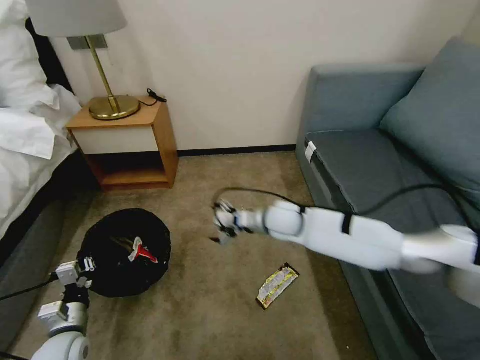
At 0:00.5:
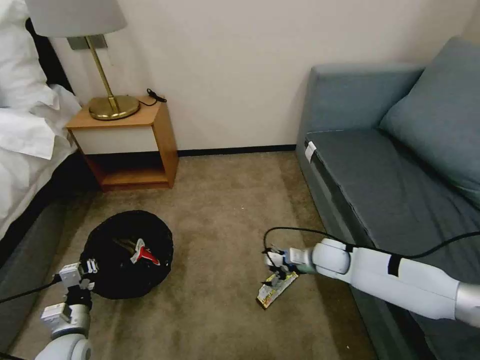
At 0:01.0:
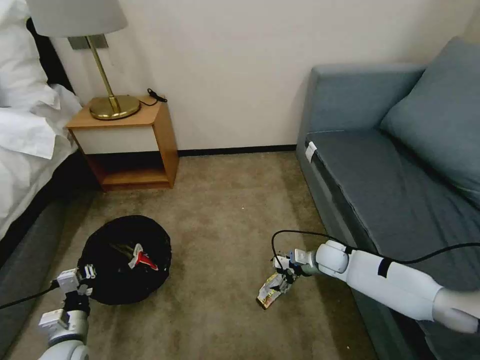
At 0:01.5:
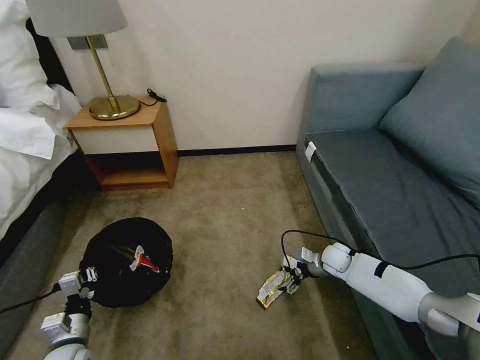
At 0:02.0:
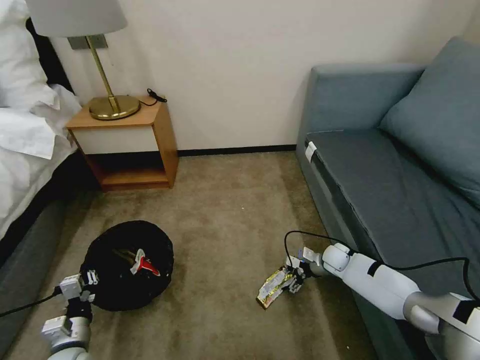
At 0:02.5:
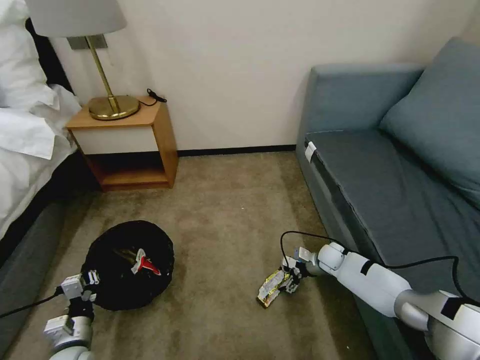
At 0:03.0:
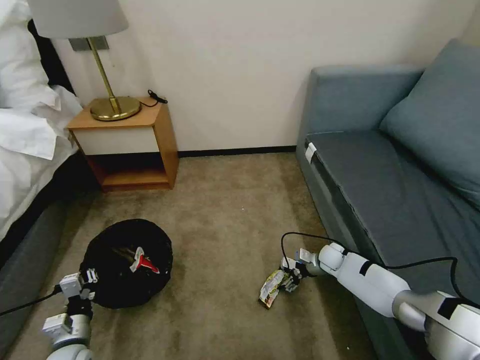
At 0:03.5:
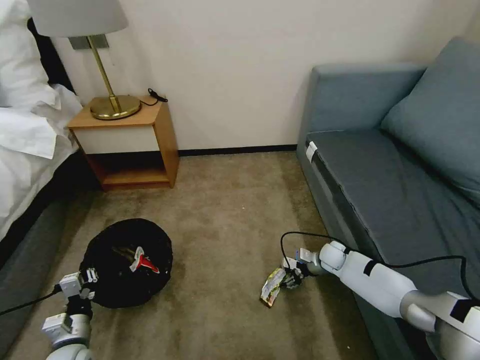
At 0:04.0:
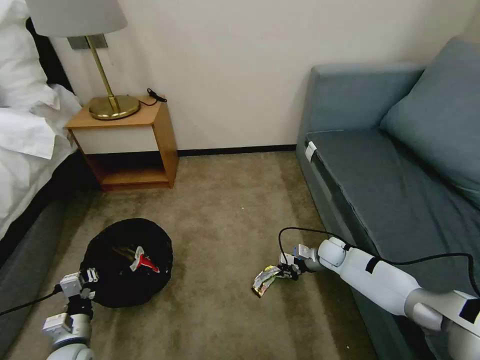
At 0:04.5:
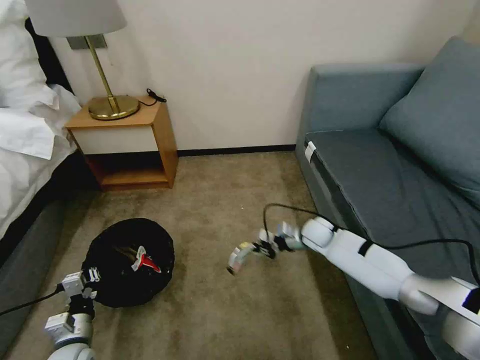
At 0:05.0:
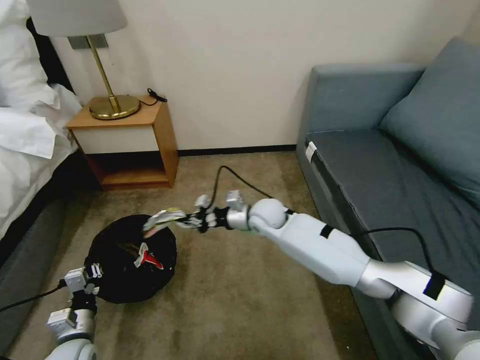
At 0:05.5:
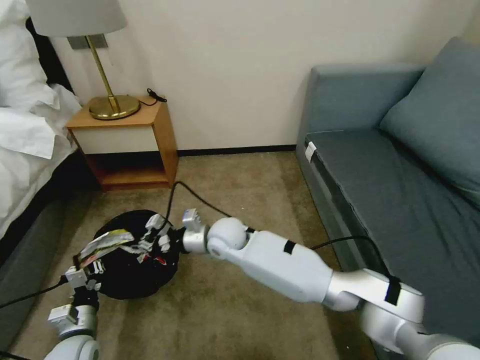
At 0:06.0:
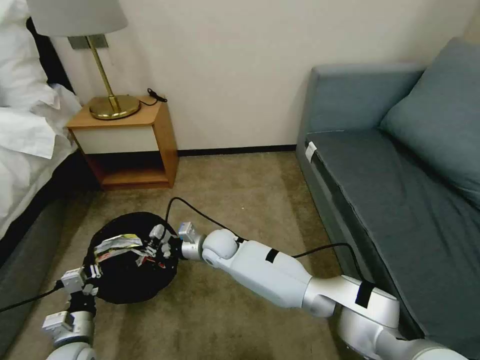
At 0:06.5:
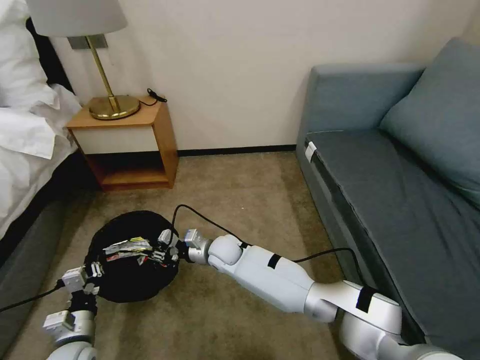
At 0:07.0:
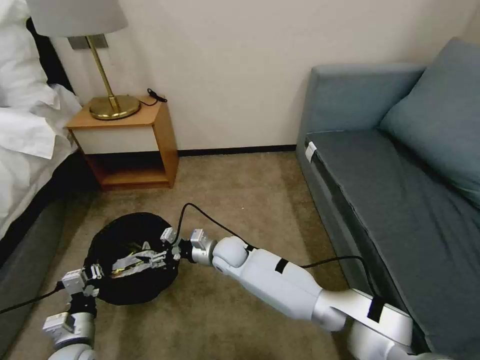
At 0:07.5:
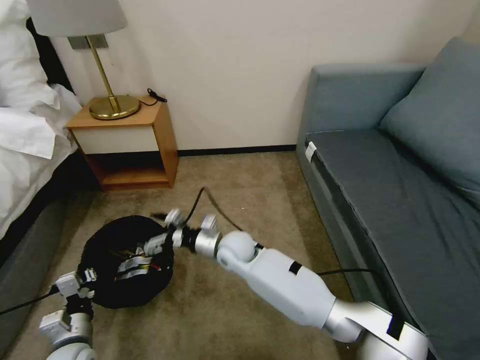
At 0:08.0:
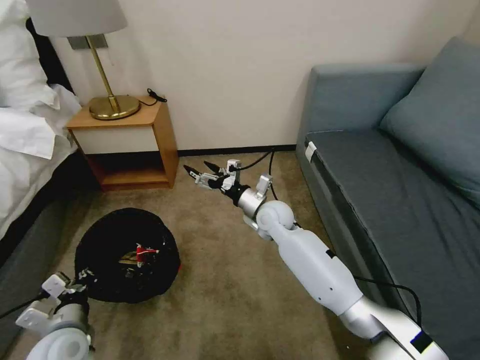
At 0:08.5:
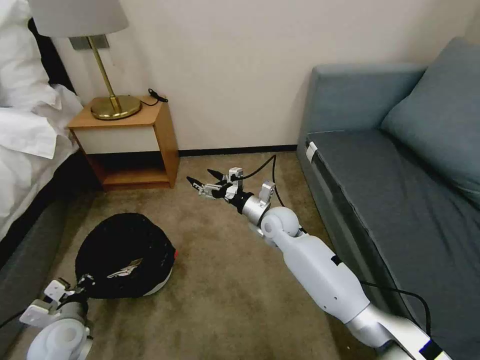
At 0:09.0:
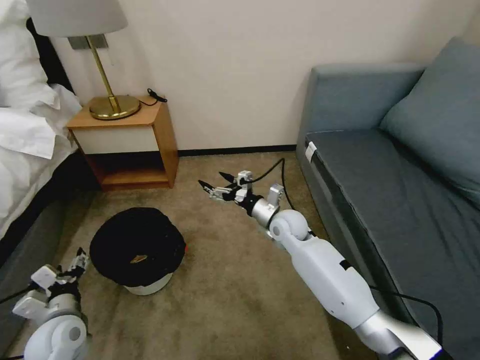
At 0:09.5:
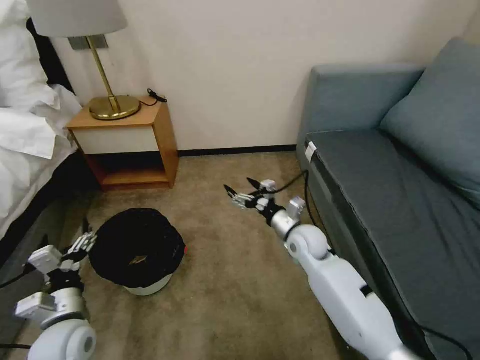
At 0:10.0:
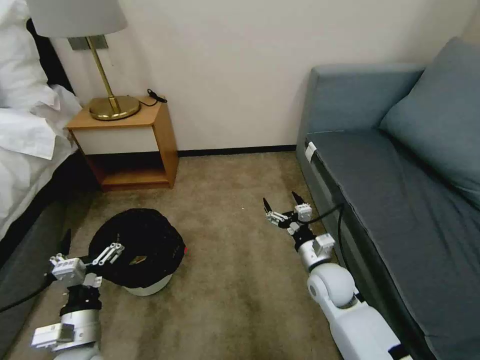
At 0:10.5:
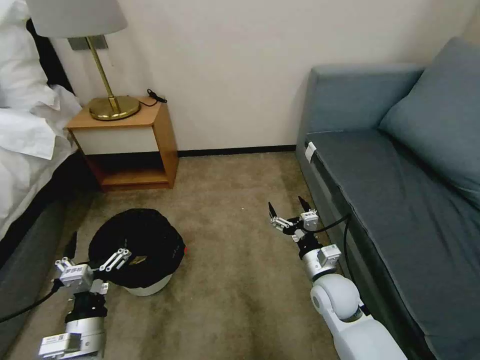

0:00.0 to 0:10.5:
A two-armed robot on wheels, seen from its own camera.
Task of the whole recording: Pick up the trash bin, then pick up the garbage on the floor and place it into the trash bin.
0:00.0 to 0:02.0: The right gripper travels downward and to the right by some 30 cm.
0:02.0 to 0:04.0: The right gripper closes its fingers.
0:04.0 to 0:06.5: The right gripper travels to the left by about 35 cm.
0:06.5 to 0:08.5: The right gripper goes roughly 15 cm to the right and upward, and opens. The left gripper changes place by approximately 5 cm.
0:08.5 to 0:10.5: The left gripper goes approximately 15 cm to the right, backward and upward, and opens up. The right gripper shifts roughly 20 cm backward and to the right.
